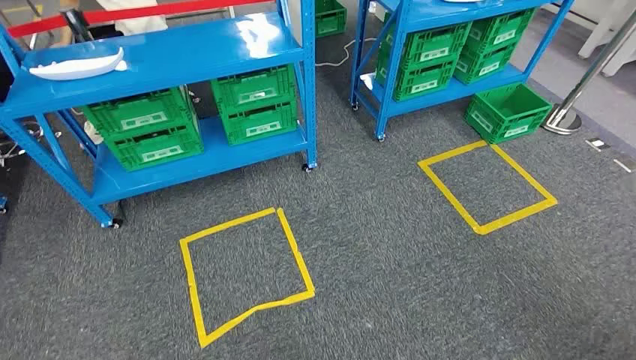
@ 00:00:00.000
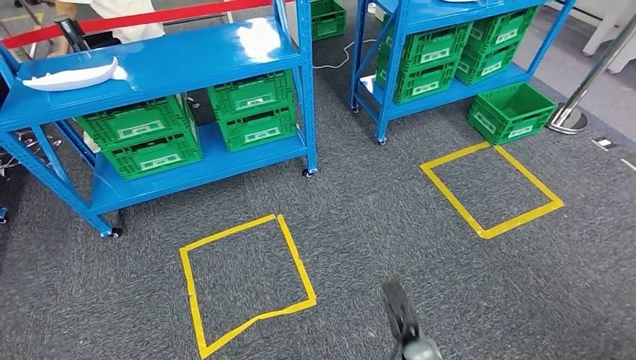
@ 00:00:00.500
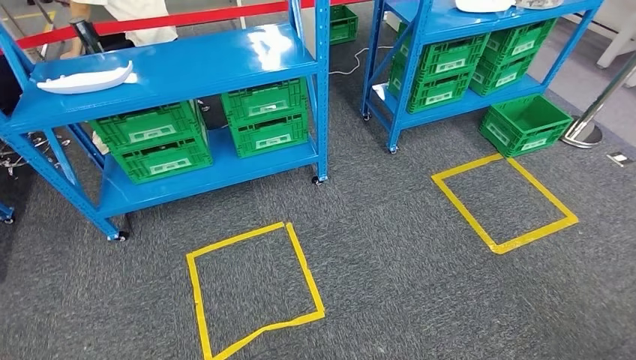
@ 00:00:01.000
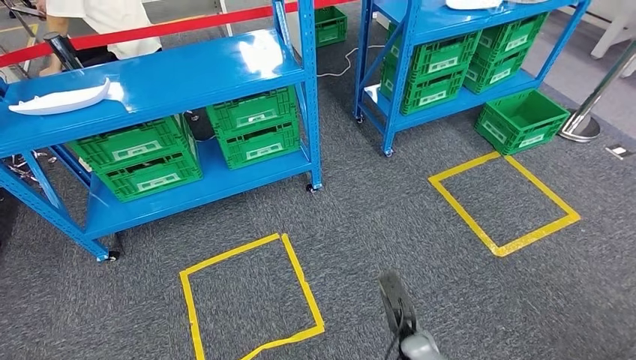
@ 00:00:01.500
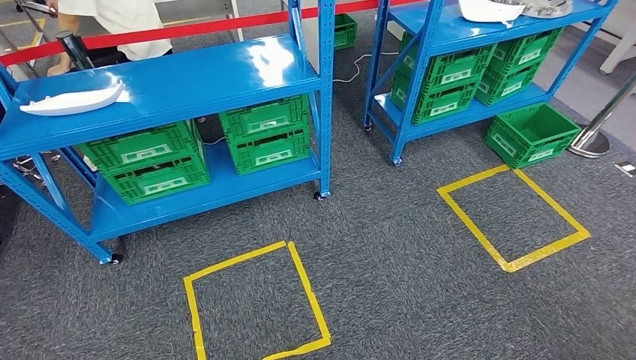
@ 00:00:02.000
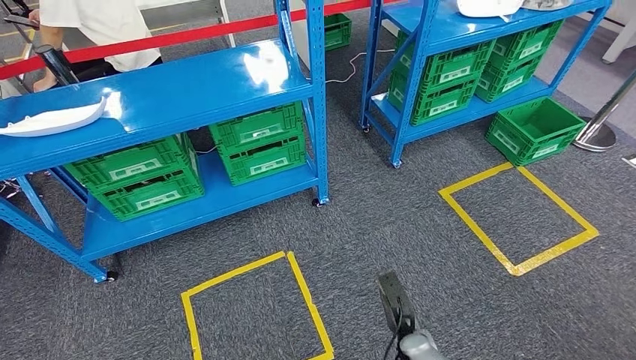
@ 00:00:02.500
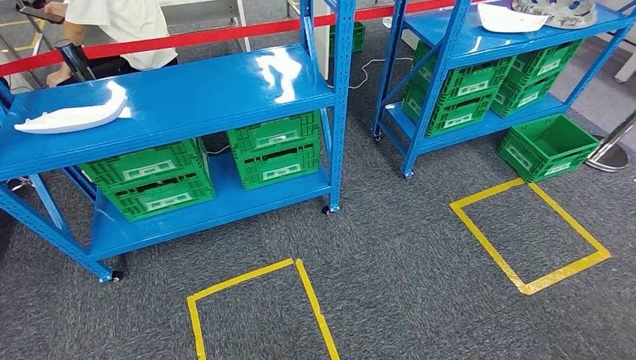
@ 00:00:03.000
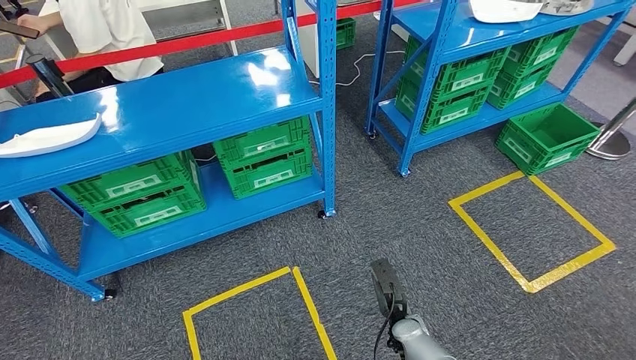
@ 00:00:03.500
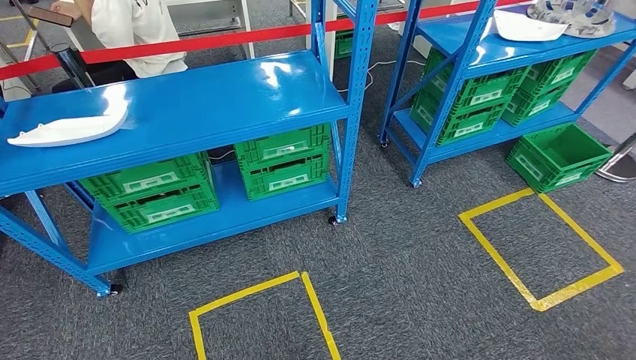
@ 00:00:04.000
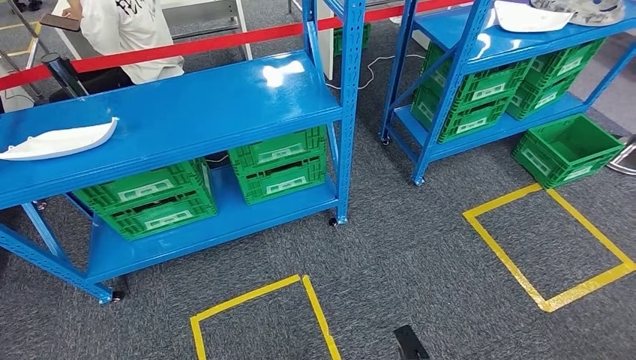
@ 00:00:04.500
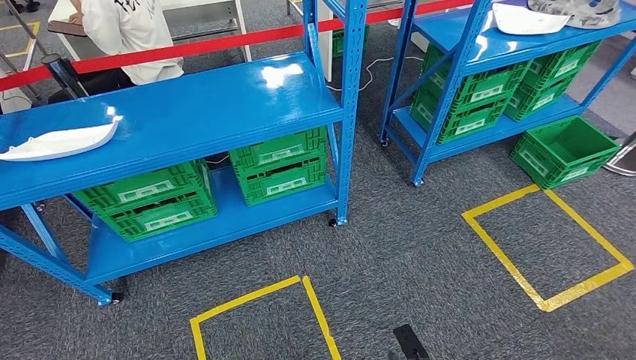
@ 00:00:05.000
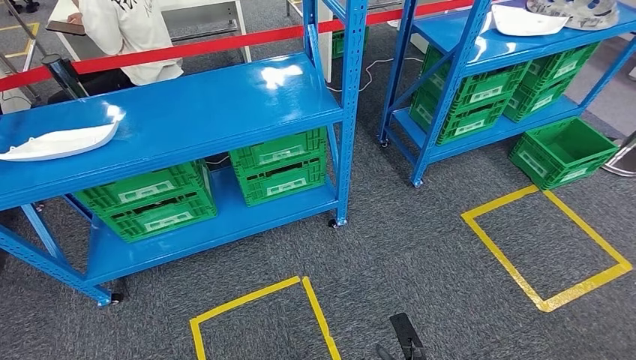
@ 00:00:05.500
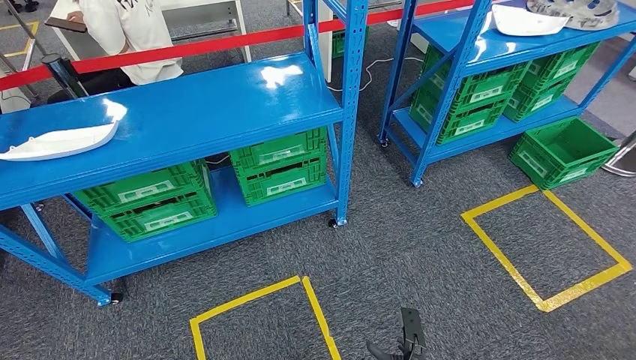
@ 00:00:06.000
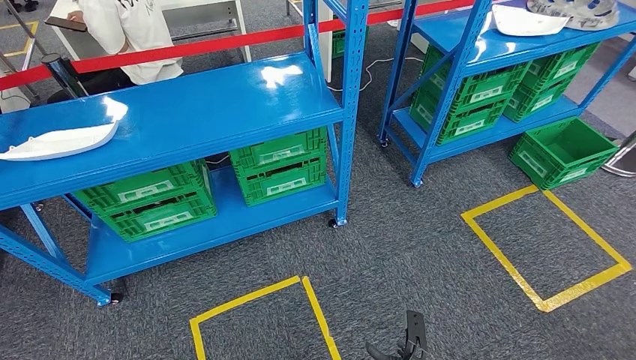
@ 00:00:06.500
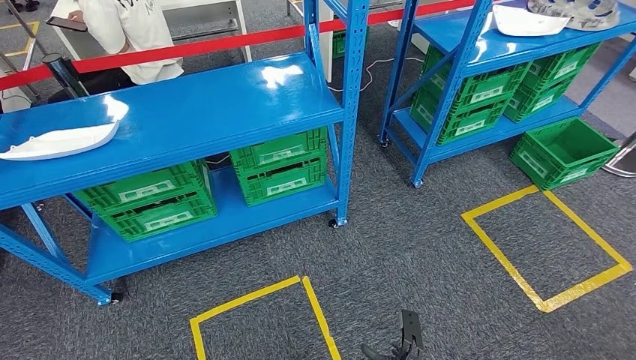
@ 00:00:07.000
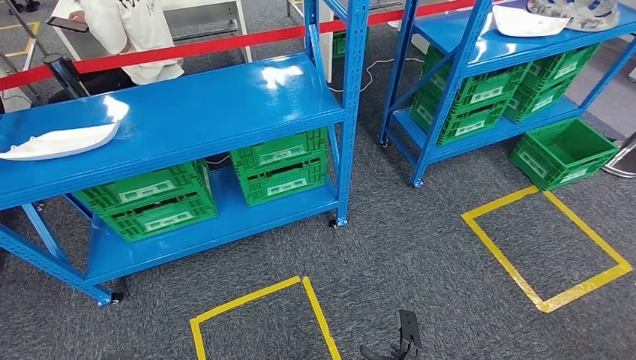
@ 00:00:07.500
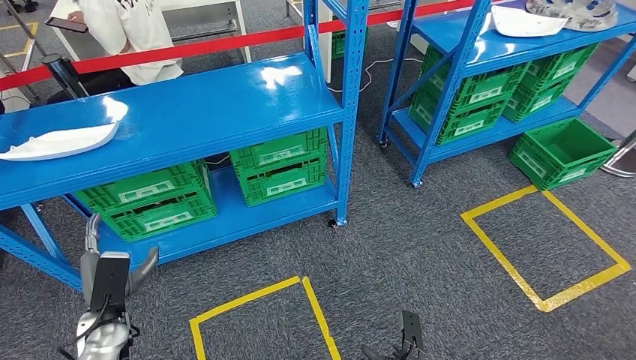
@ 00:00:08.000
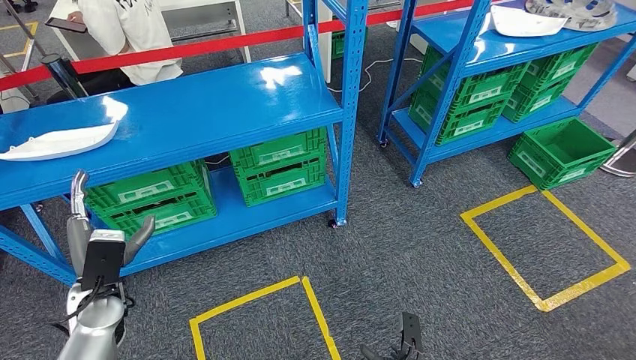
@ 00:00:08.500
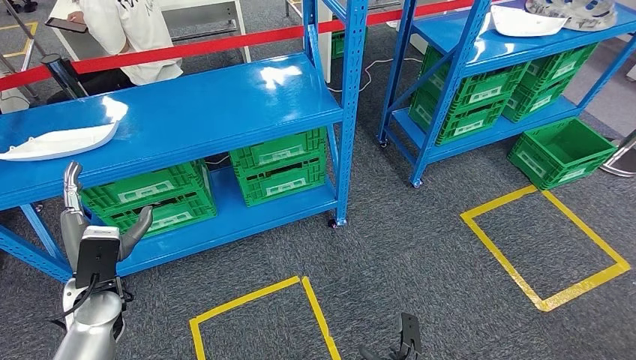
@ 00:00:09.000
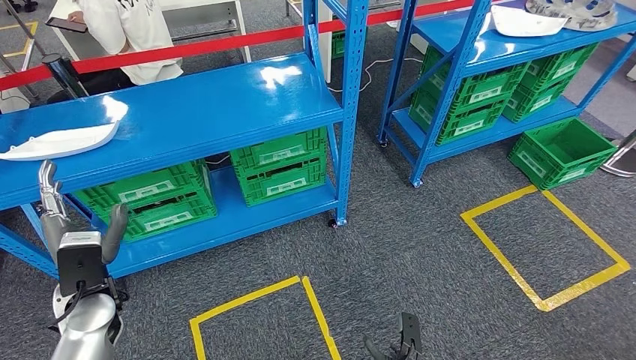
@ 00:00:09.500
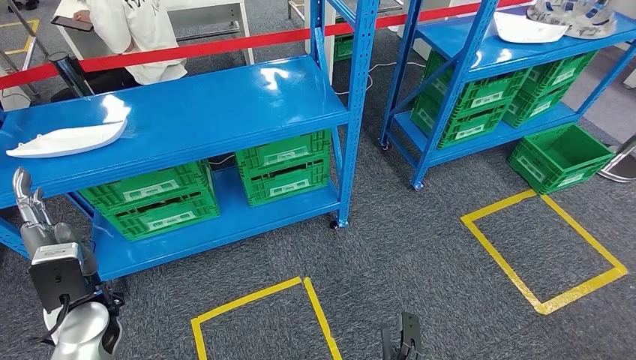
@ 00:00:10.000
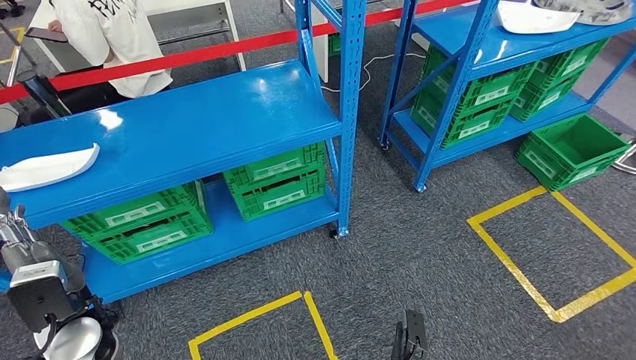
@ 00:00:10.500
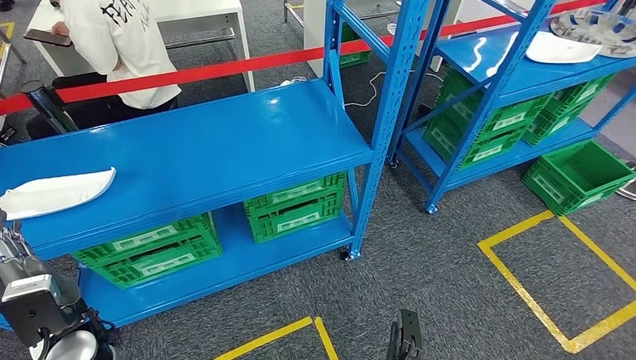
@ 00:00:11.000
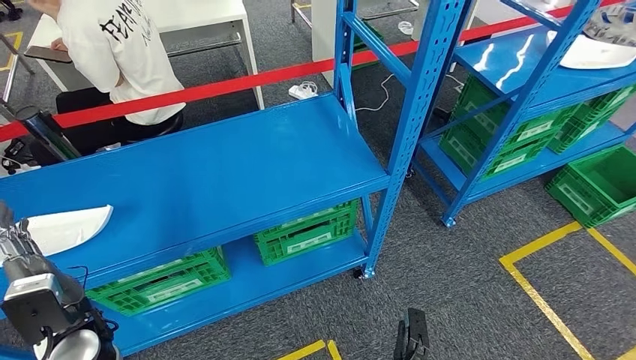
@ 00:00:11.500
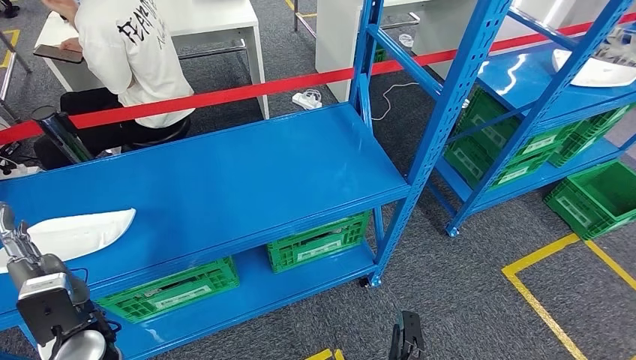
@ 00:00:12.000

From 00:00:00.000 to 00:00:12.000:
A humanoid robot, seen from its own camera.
From 00:00:06.000 to 00:00:08.000: The left hand heads forward and upward, covering roughly 35 cm.

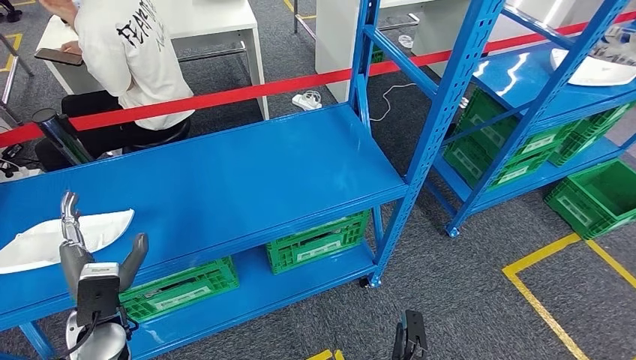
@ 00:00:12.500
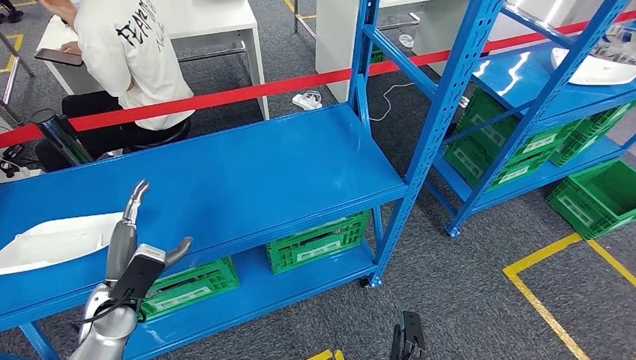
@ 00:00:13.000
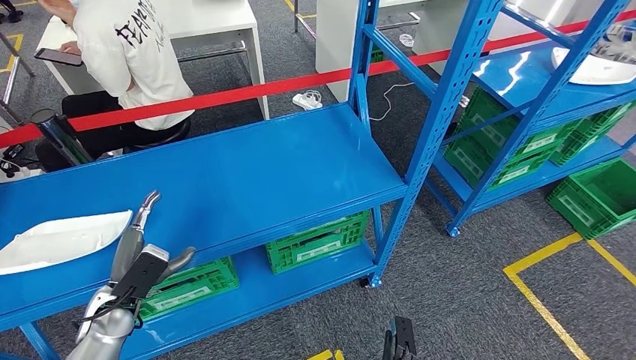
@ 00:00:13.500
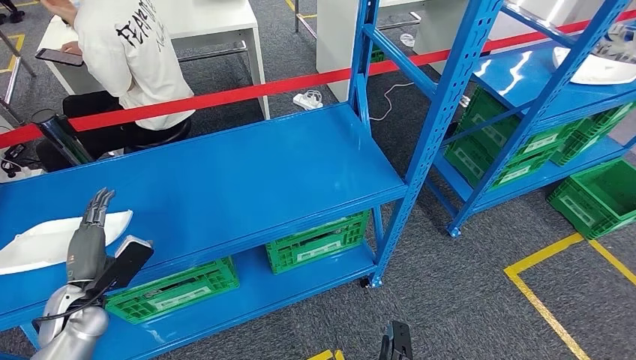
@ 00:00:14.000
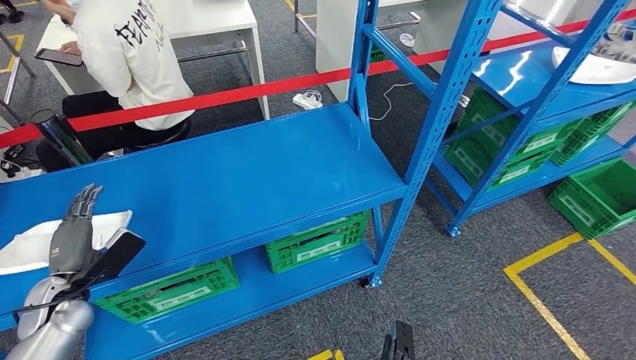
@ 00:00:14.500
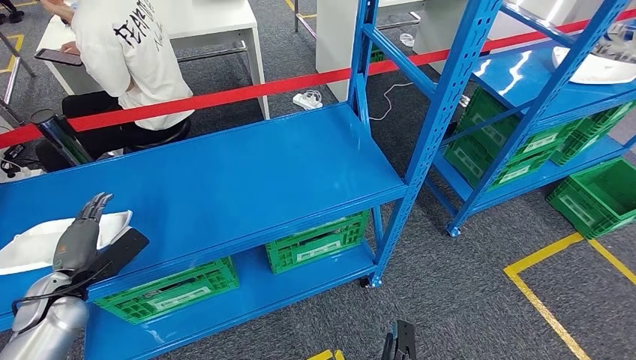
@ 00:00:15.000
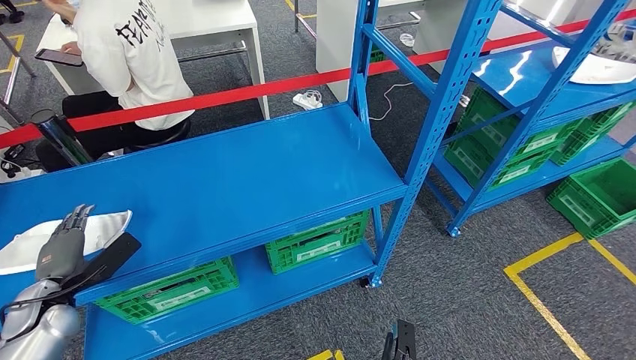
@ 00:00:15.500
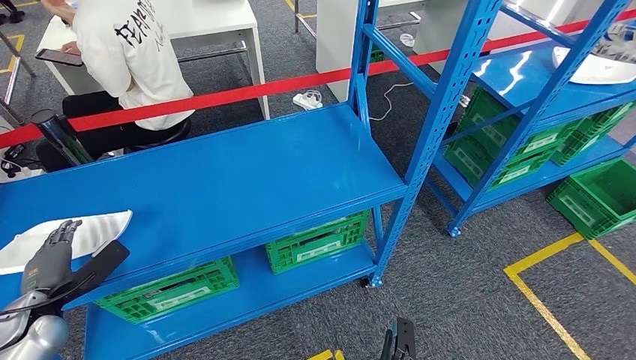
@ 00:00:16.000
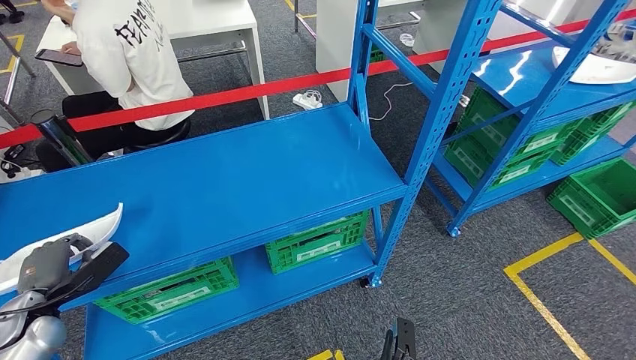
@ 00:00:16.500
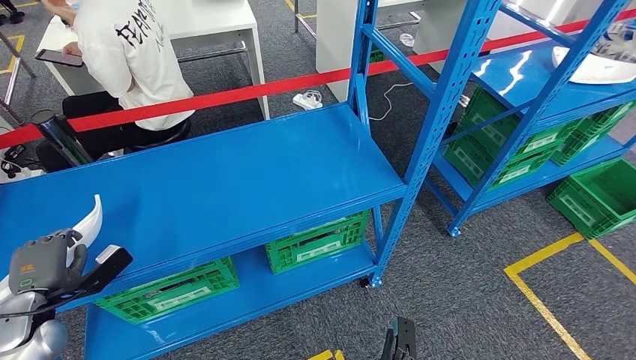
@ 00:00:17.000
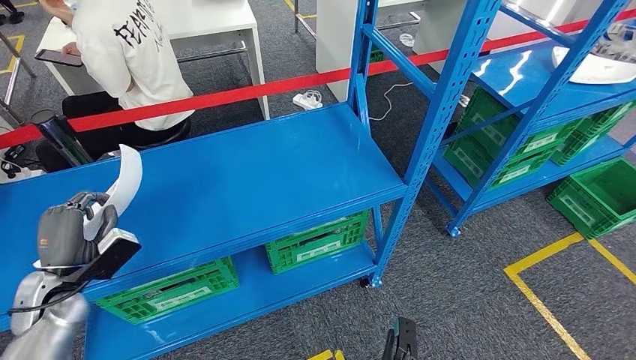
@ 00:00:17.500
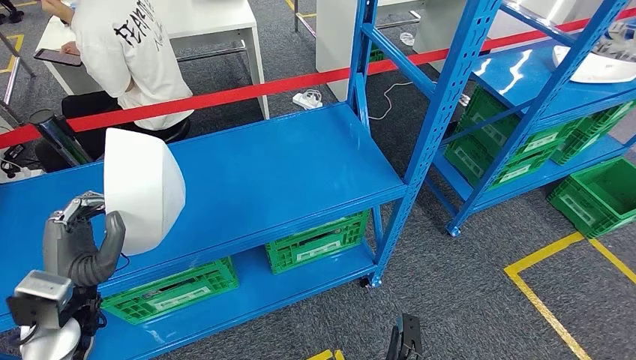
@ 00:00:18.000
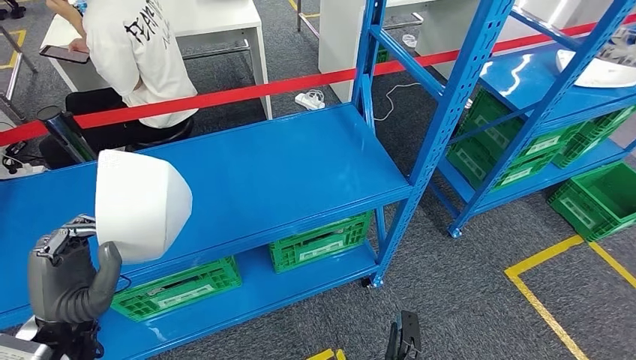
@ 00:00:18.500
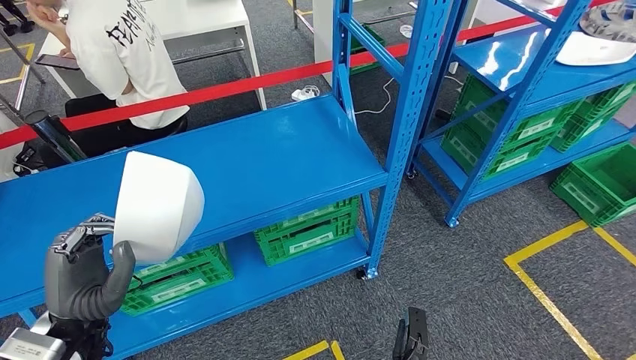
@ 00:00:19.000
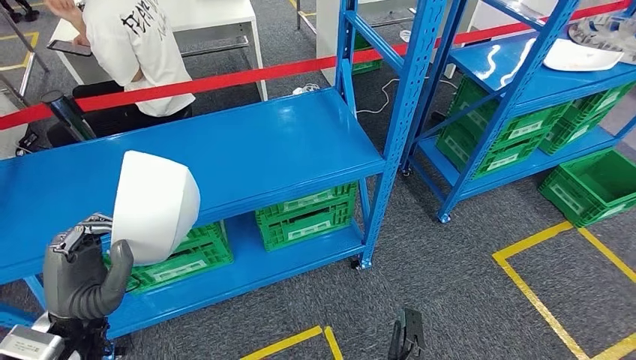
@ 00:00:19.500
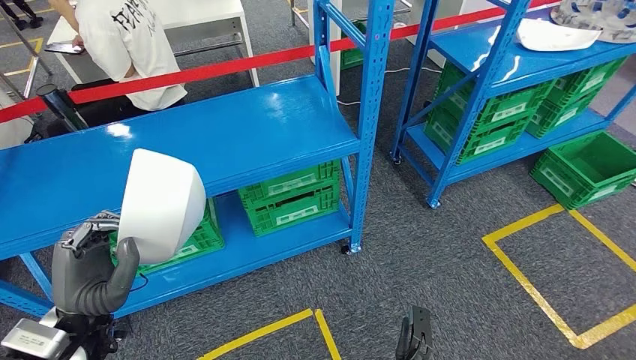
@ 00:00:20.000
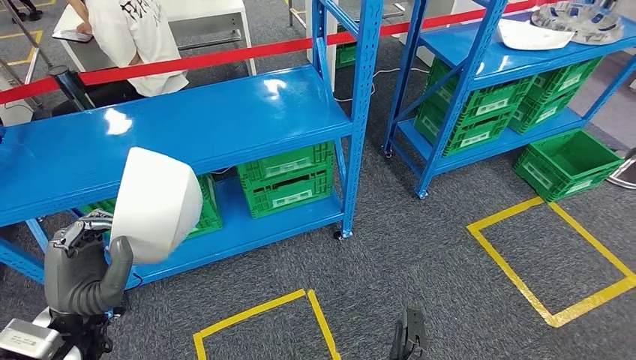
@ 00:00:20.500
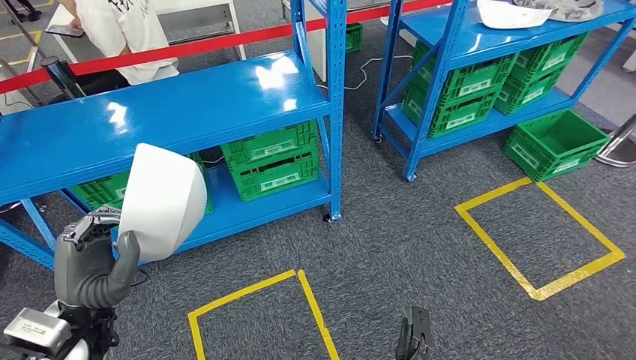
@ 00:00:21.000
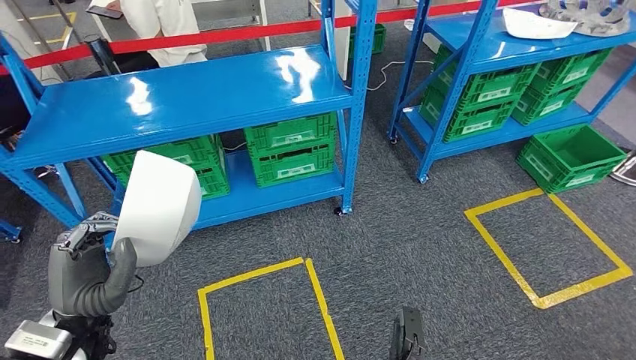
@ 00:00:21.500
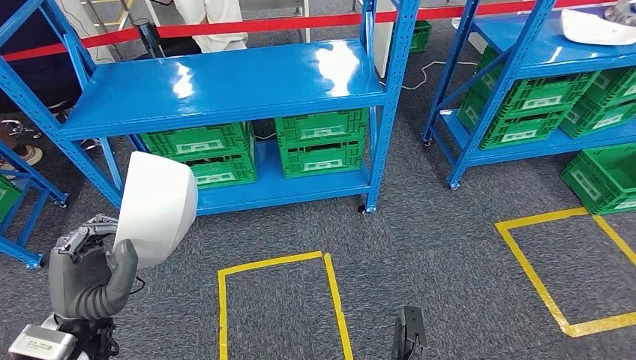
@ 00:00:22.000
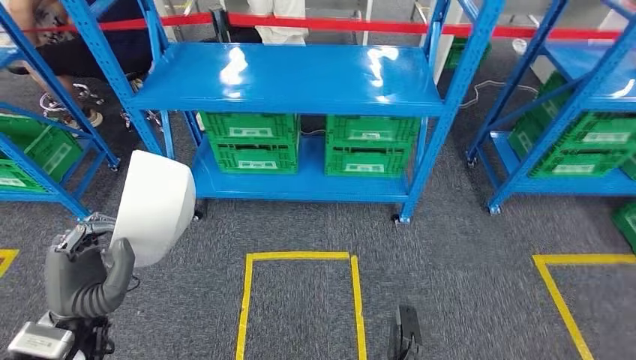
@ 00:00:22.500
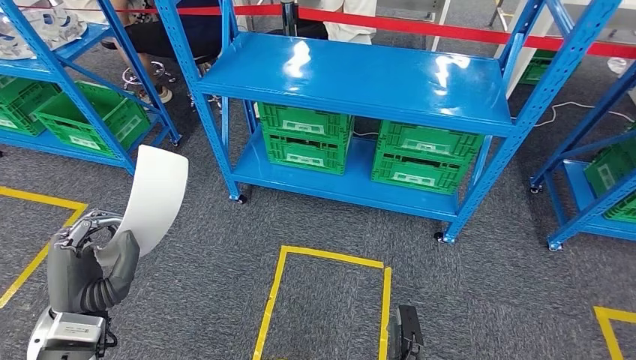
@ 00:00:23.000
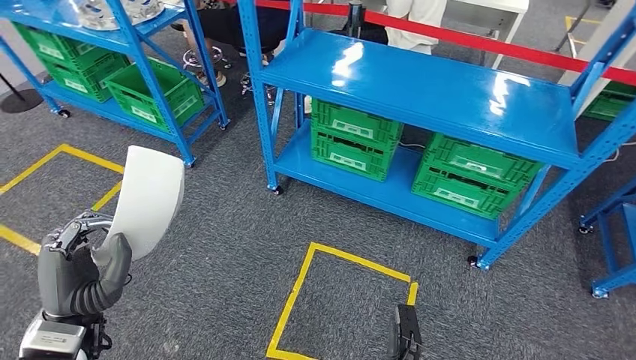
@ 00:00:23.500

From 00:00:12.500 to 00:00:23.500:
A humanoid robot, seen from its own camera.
Step, from 00:00:12.500 to 00:00:18.000: Pick up the small parts from the shelf.
From 00:00:12.500 to 00:00:14.500: The left hand travels to the left and forward by about 10 cm.
From 00:00:14.500 to 00:00:16.000: The left hand travels to the left by some 5 cm.
From 00:00:16.000 to 00:00:18.000: The left hand moves to the right and upward, approximately 15 cm.
